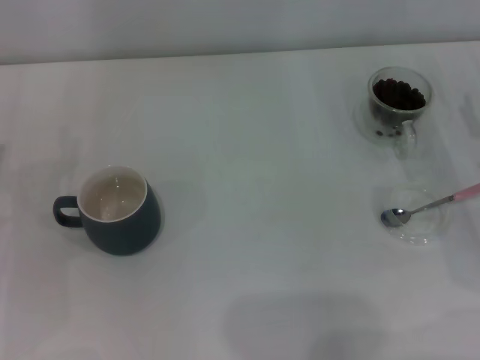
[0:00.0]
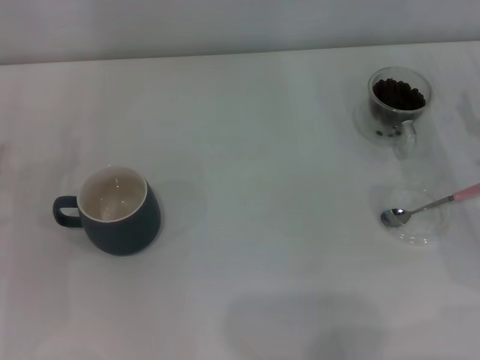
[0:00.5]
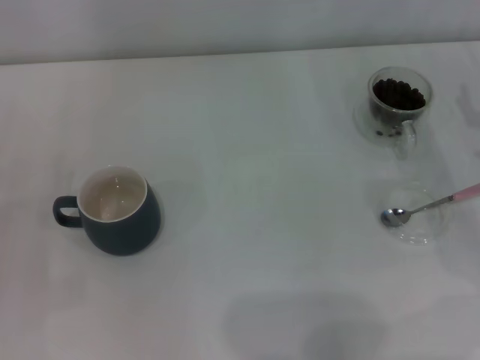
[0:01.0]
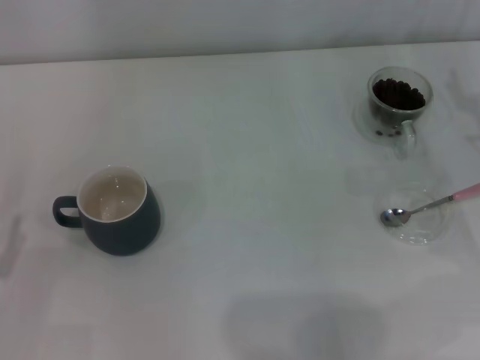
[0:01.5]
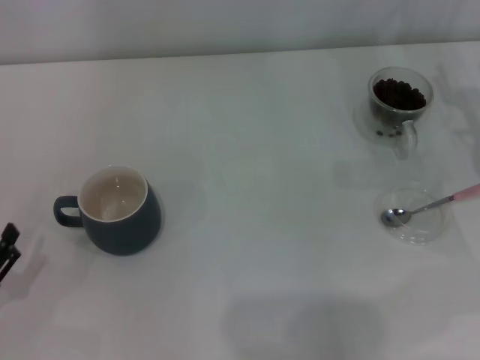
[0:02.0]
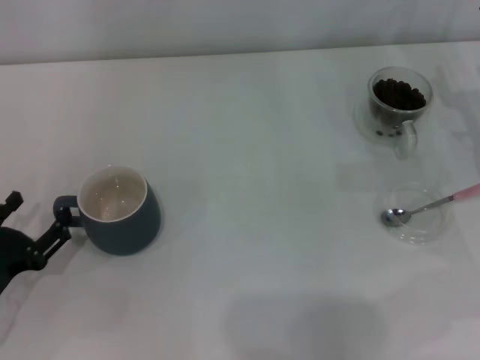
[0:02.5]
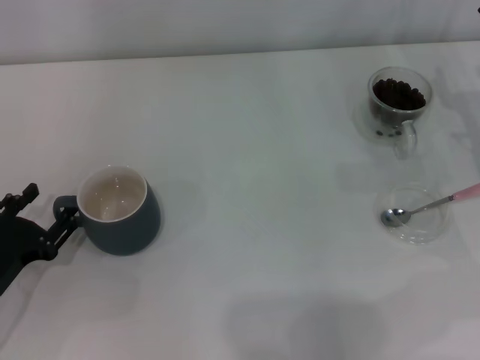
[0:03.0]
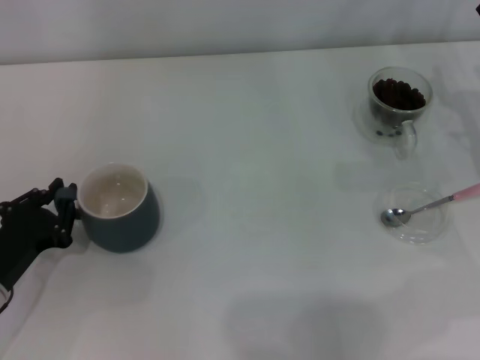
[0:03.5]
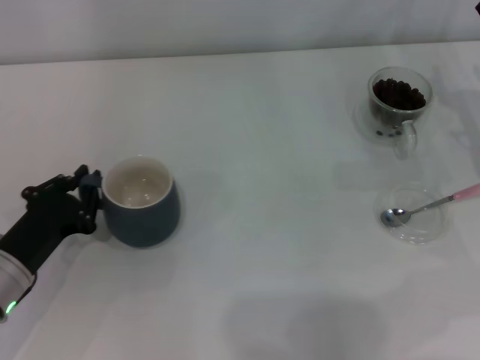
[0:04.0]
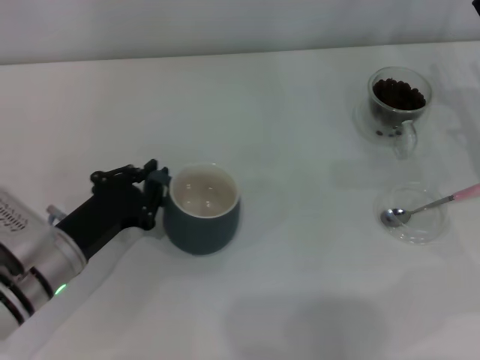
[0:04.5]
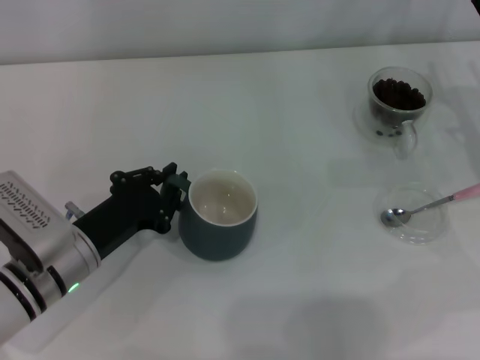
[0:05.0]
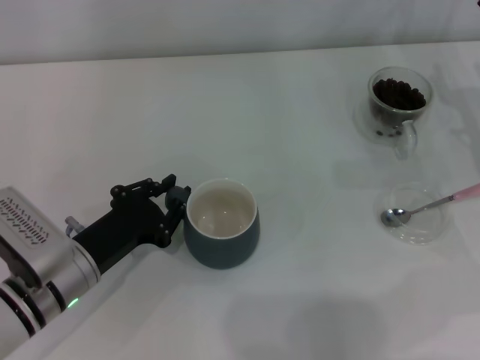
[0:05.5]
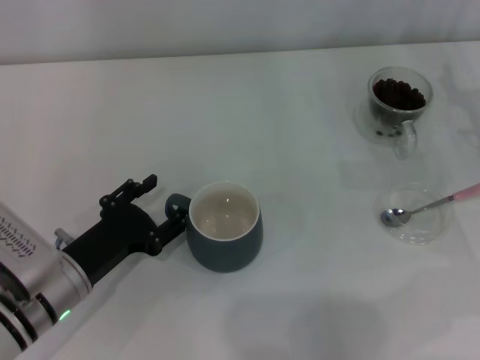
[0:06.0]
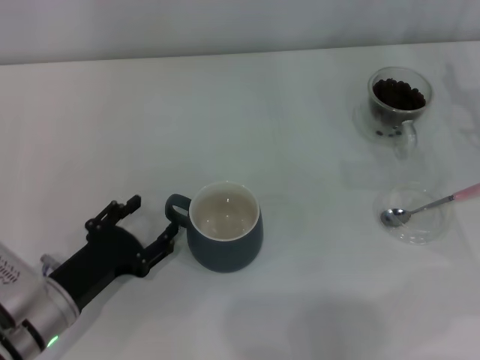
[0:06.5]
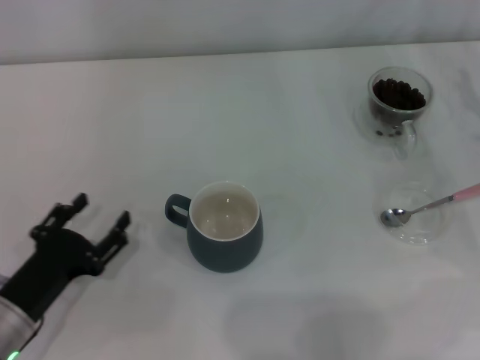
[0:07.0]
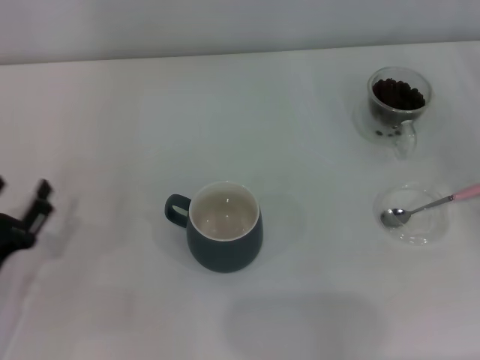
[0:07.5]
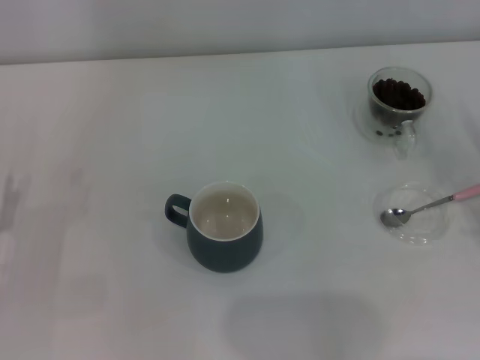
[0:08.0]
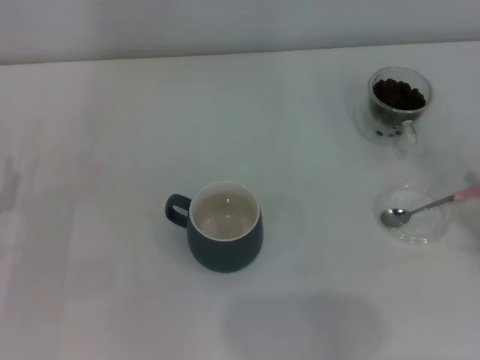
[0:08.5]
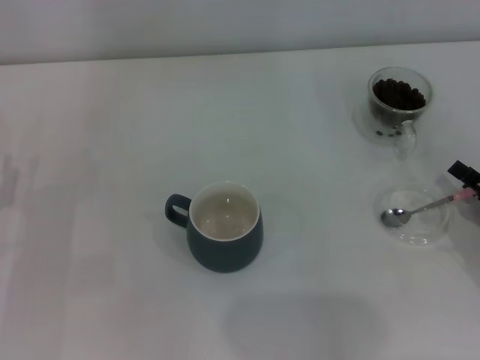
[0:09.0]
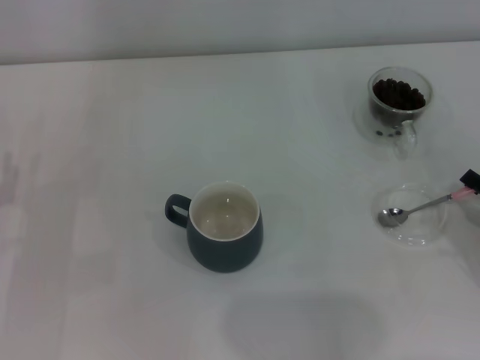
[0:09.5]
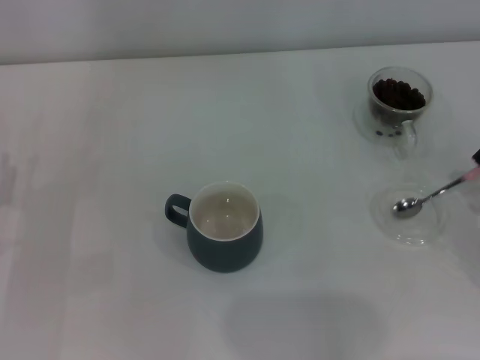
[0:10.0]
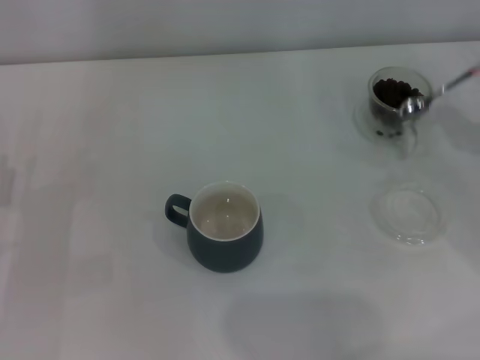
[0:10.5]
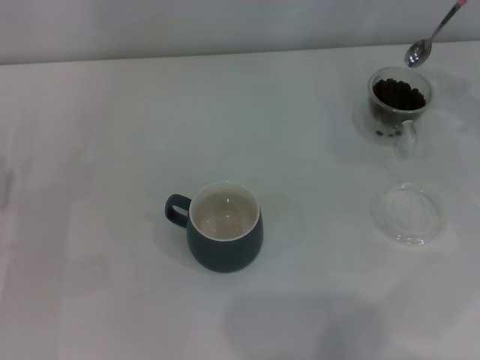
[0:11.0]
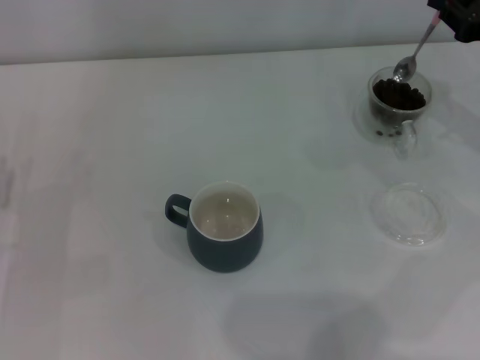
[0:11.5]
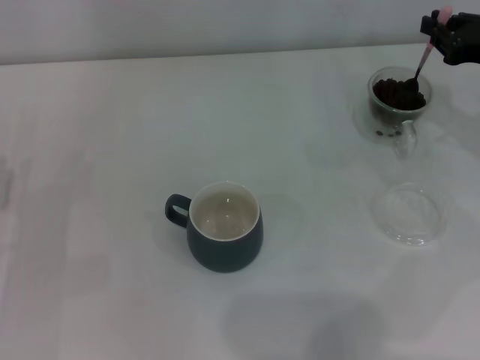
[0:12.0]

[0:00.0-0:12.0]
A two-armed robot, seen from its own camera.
Task of the whole recording: Use a pink spoon to take out the coffee beans from the glass and pour them into the gray cup.
Step, 0:00.0 to 0:07.0: Move the cup to the center of view with the left gripper.
Step, 0:07.5 to 0:10.0: Pick up the spoon with the right gripper.
0:00.0 to 0:02.0: The left gripper travels backward by about 15 cm.
0:02.0 to 0:04.0: The left gripper goes about 10 cm forward and to the right, and closes.
0:04.0 to 0:06.0: The left gripper moves to the right, some 5 cm, and opens up.
0:06.0 to 0:08.0: The left gripper goes some 10 cm to the left. Meanwhile the right gripper heads backward and to the right, covering some 15 cm.
0:08.0 to 0:10.0: The right gripper closes up.
0:10.0 to 0:12.0: The right gripper is displaced forward and upward by some 20 cm.

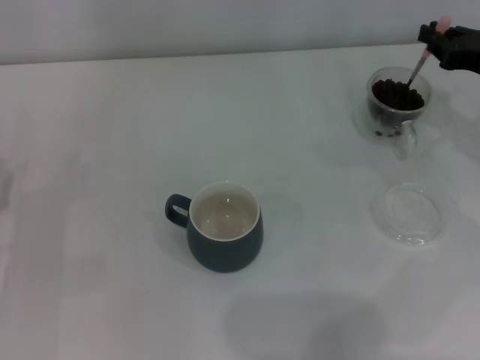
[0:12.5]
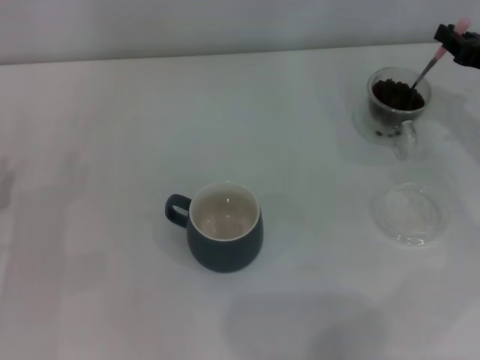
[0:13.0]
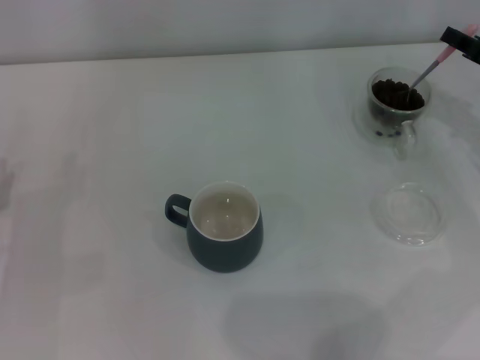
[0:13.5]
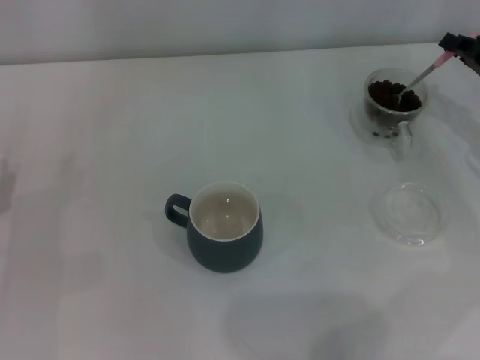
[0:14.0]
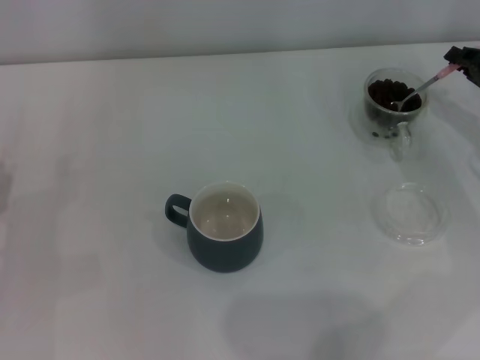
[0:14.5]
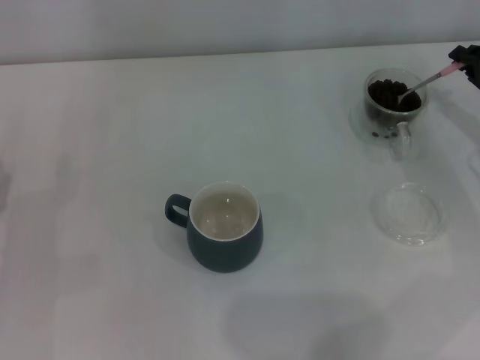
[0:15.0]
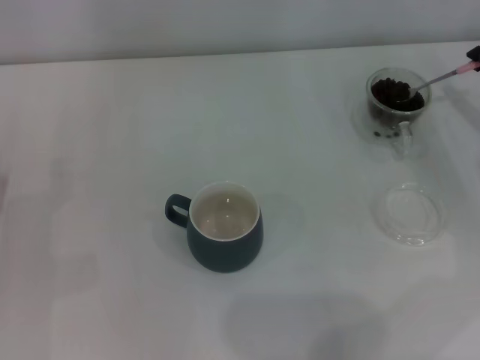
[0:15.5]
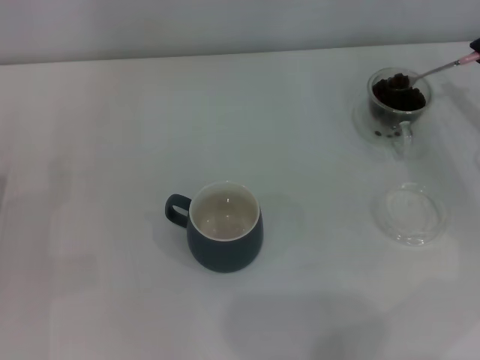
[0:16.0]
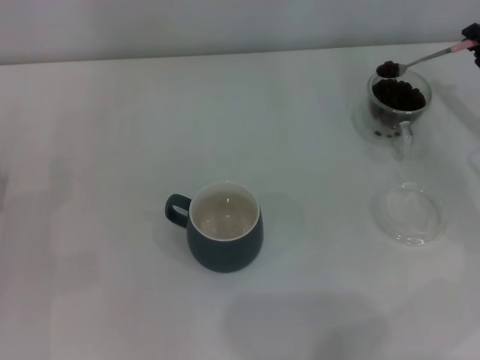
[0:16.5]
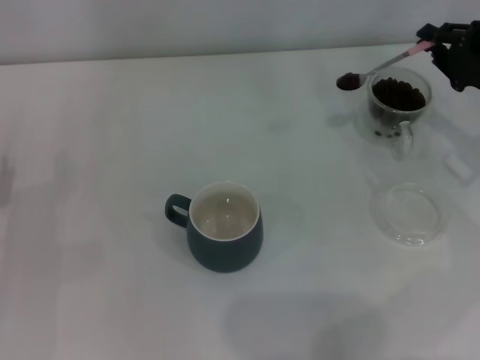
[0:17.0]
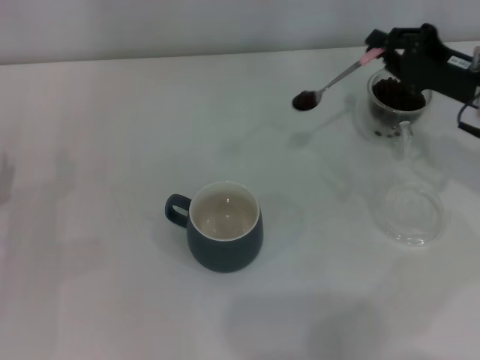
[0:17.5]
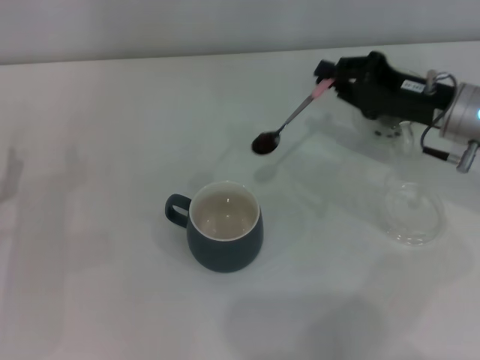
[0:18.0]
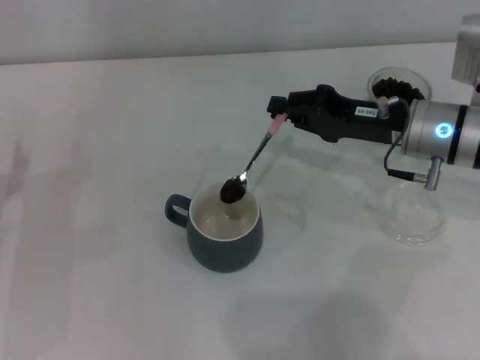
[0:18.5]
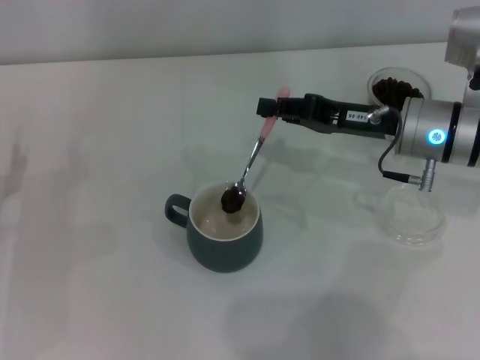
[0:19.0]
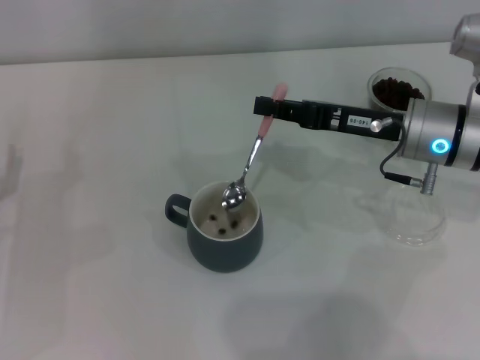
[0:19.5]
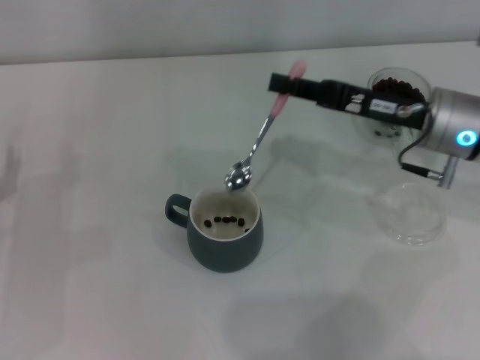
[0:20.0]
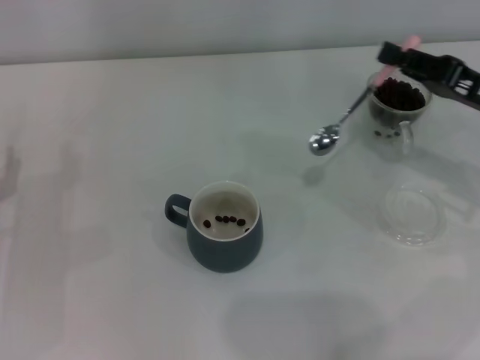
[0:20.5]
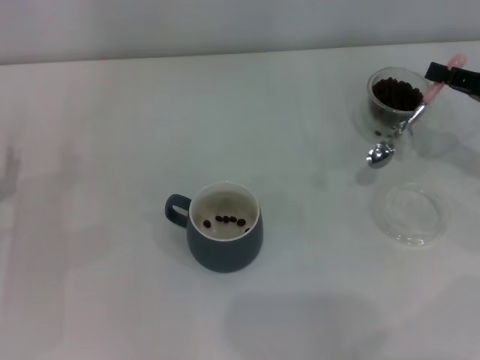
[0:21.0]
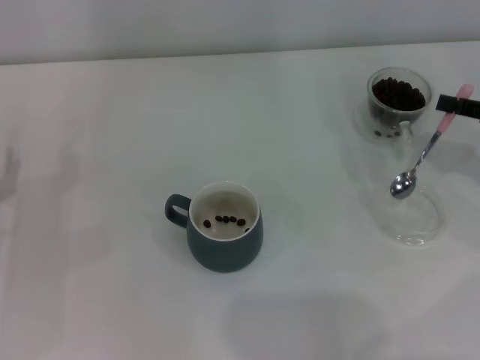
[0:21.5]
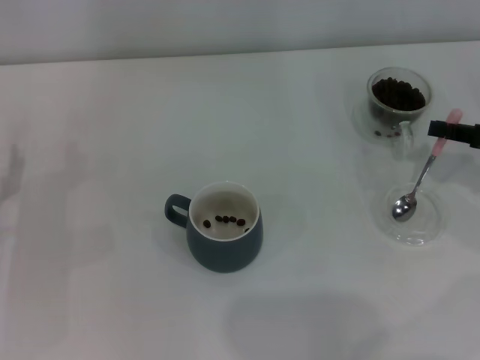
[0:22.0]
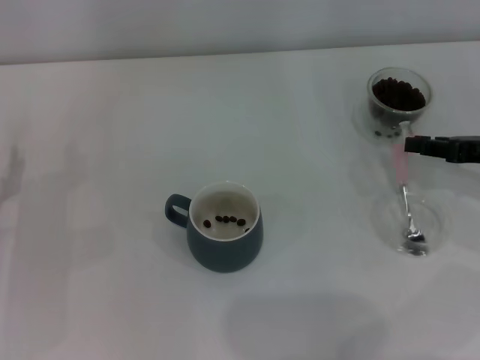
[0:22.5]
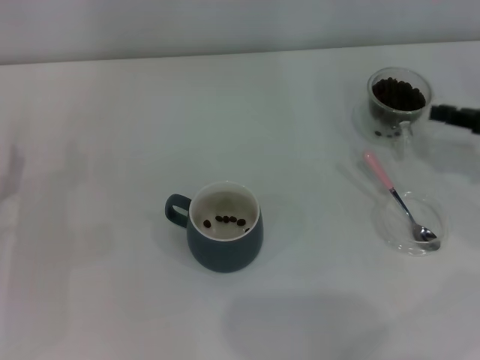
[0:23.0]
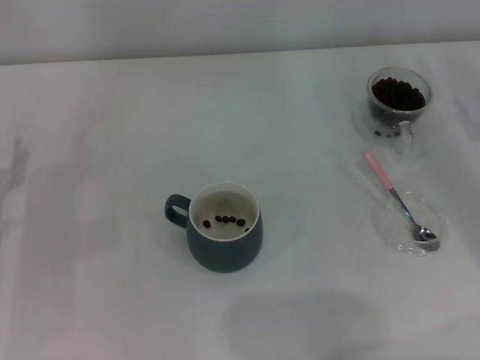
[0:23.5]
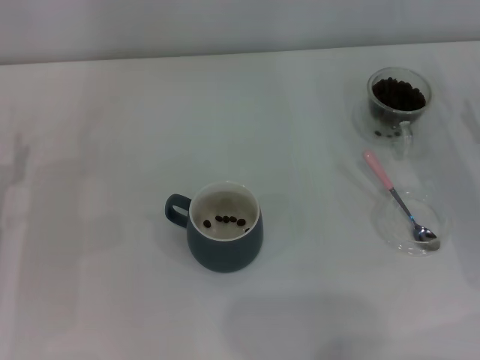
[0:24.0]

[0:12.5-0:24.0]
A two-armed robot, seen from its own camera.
Task of the whole recording: Use a pink spoon to take out the coffee beans from the glass and pour them into the gray cup.
Step, 0:12.5 to 0:19.5: Scoop a spoonful of beans into the cup with the right gripper.
Step, 0:20.0 to 0:22.5: Place the spoon back in its original place with the right gripper.
0:16.5 to 0:18.5: The right gripper travels to the left by some 15 cm.
0:20.0 to 0:22.0: The right gripper travels to the right by some 15 cm.
0:22.0 to 0:24.0: The right gripper is displaced downward by approximately 5 cm, and opens its fingers.

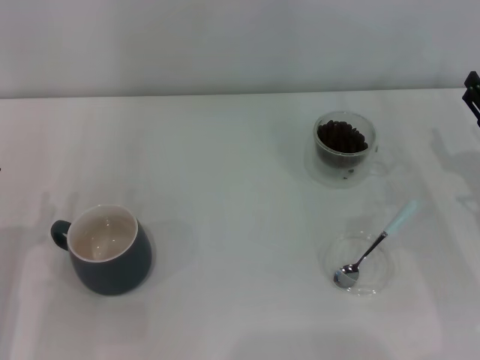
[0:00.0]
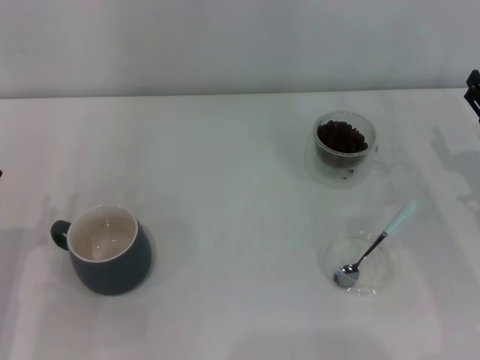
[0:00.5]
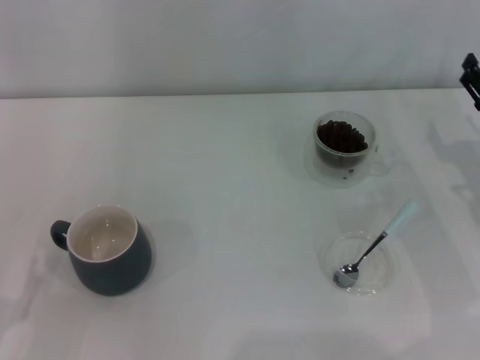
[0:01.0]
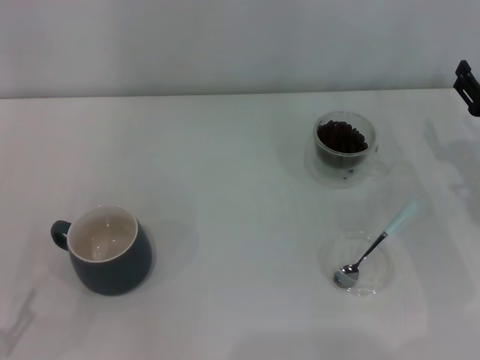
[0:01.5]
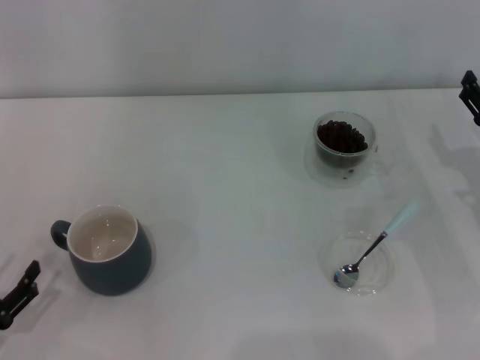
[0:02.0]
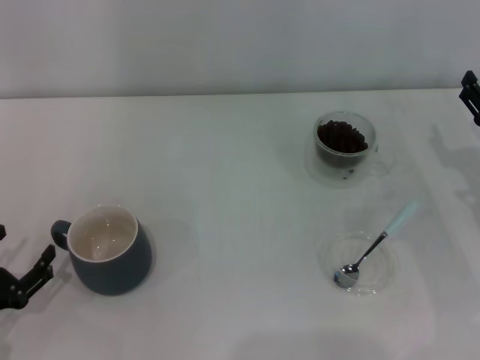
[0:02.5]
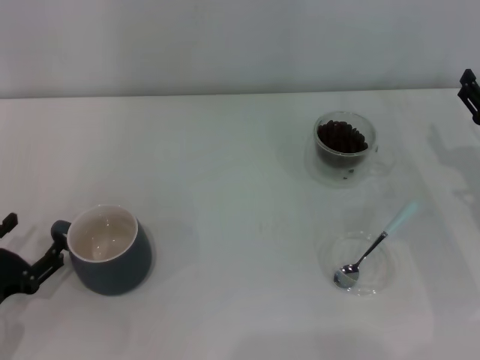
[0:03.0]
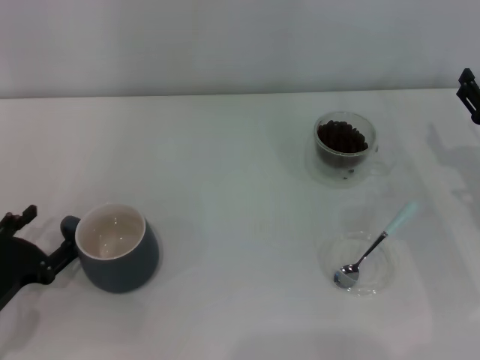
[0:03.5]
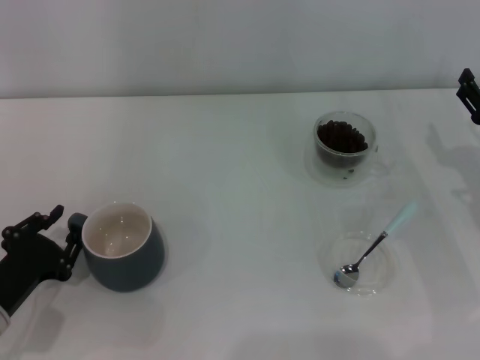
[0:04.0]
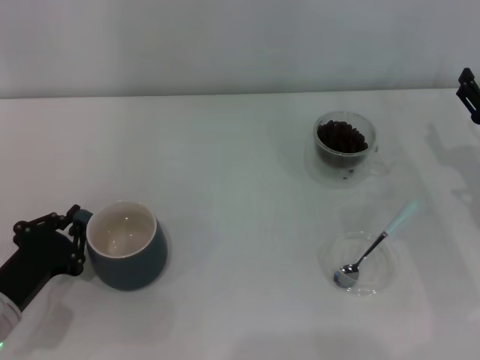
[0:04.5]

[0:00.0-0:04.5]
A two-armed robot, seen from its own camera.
Task of the whole recording: Use a blue spoon to take out the coffee beans from the glass and pour them into the gray cup.
0:00.0 to 0:02.0: The left gripper moves backward, some 5 cm.
0:02.0 to 0:04.5: The left gripper heads forward and to the right, covering approximately 10 cm, and closes up.
